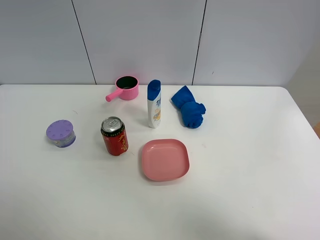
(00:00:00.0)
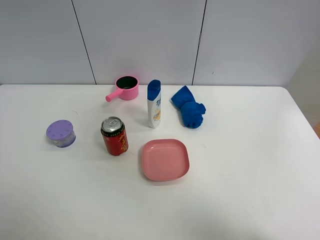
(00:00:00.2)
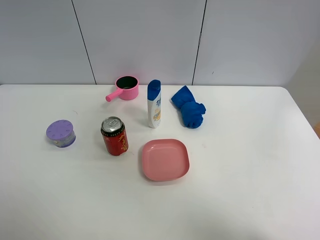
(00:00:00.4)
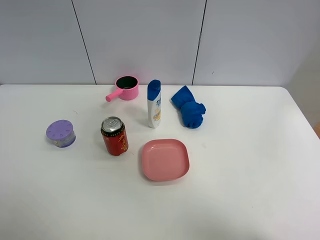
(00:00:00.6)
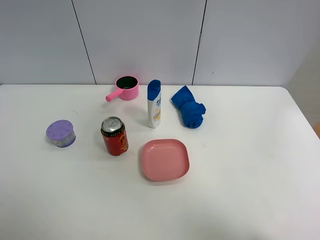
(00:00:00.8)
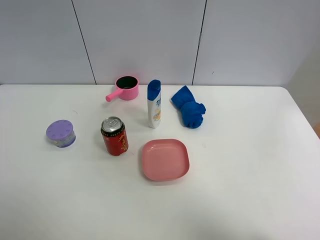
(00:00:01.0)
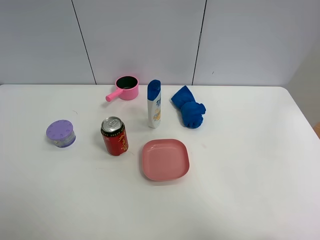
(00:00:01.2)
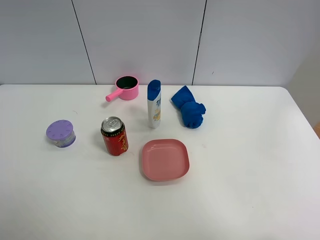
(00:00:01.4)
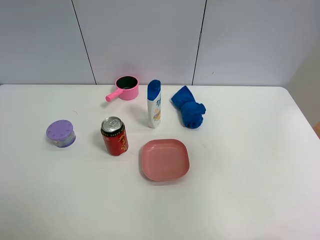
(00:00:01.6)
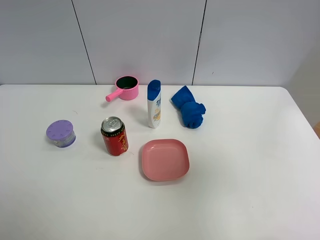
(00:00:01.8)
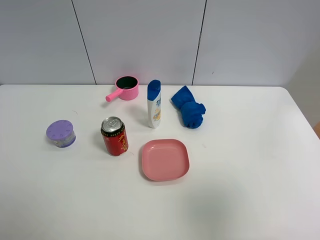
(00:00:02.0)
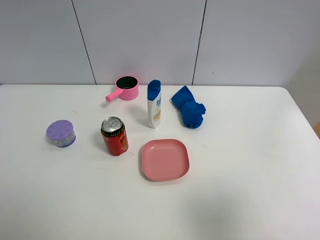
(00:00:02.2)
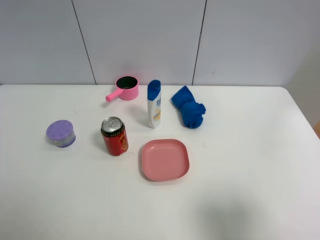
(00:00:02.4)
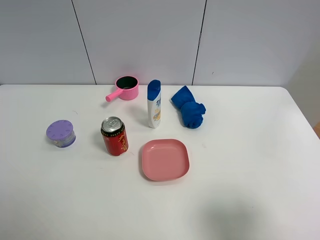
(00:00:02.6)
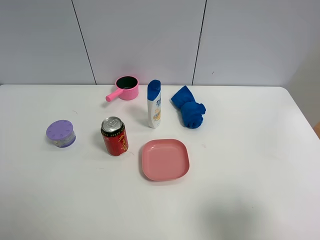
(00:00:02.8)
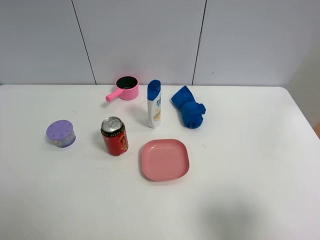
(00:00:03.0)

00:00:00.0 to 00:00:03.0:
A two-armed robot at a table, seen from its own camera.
Task of the whole recording: the gripper move the object.
00:00:00.0 to 00:00:01.6: The right gripper moves downward, to the right and backward, some 20 cm.
00:00:01.6 to 00:00:03.0: The right gripper travels downward and backward by some 20 cm.

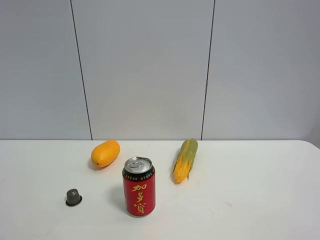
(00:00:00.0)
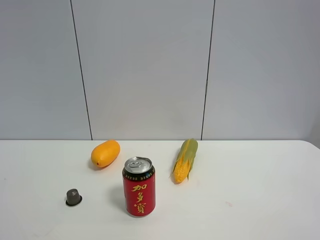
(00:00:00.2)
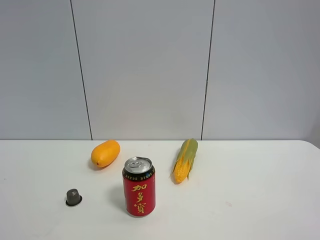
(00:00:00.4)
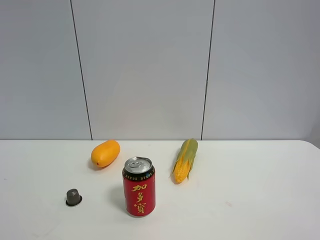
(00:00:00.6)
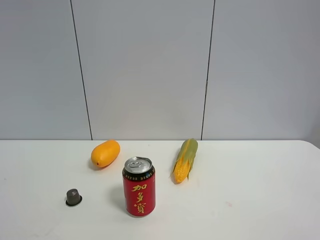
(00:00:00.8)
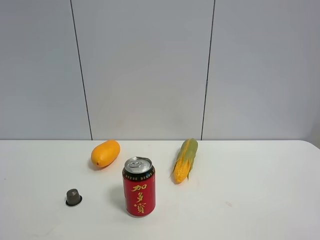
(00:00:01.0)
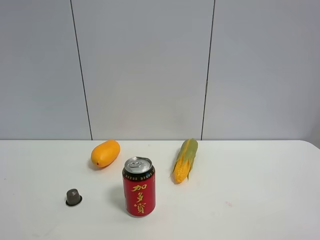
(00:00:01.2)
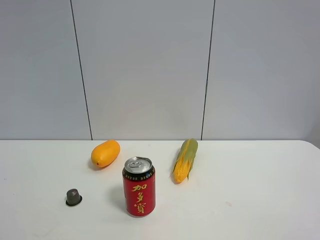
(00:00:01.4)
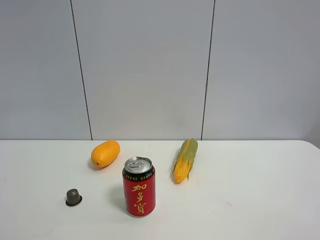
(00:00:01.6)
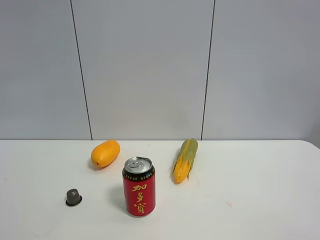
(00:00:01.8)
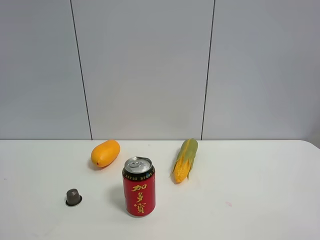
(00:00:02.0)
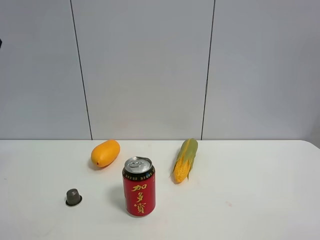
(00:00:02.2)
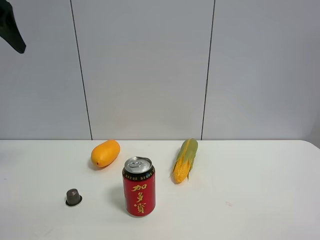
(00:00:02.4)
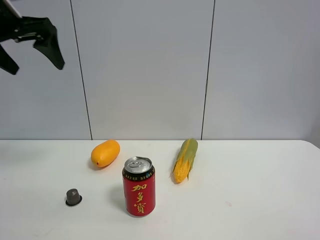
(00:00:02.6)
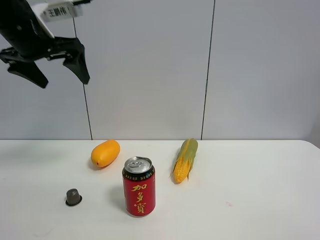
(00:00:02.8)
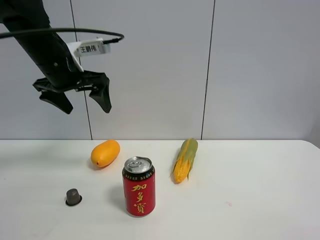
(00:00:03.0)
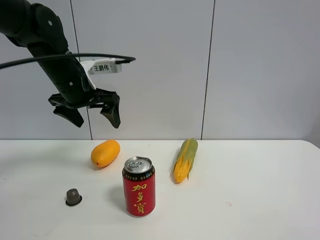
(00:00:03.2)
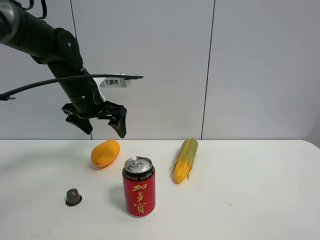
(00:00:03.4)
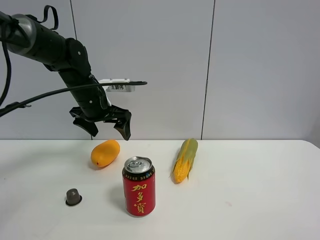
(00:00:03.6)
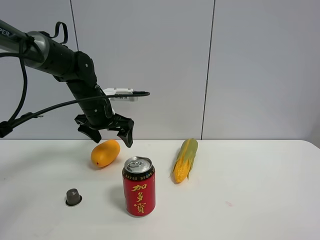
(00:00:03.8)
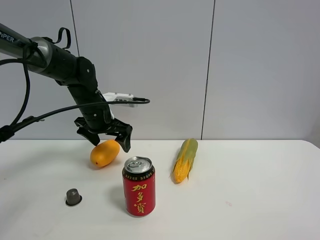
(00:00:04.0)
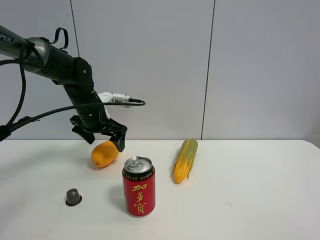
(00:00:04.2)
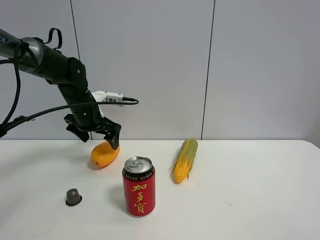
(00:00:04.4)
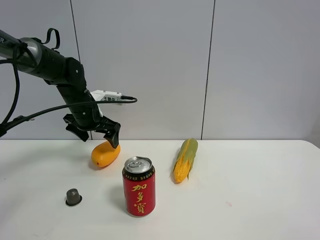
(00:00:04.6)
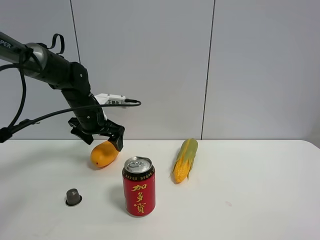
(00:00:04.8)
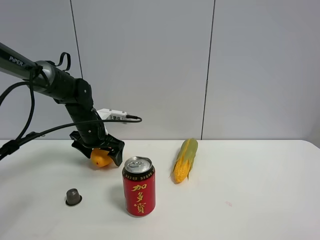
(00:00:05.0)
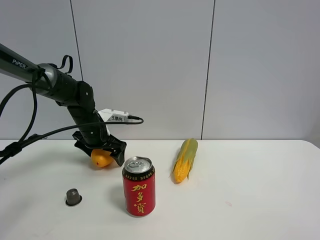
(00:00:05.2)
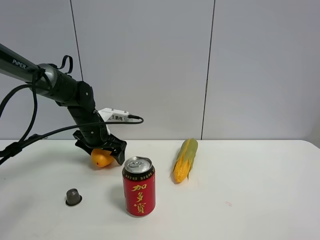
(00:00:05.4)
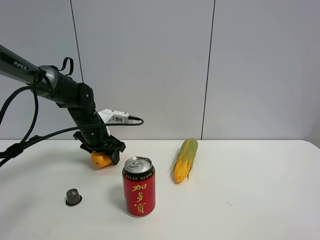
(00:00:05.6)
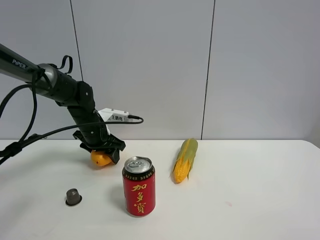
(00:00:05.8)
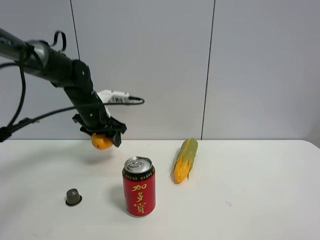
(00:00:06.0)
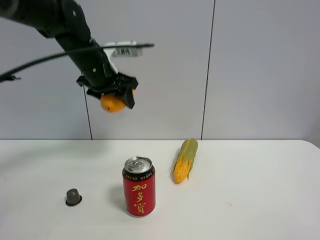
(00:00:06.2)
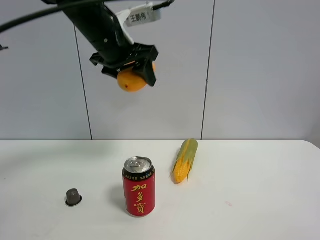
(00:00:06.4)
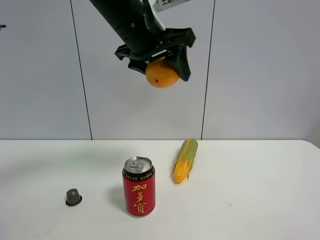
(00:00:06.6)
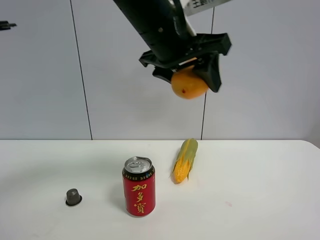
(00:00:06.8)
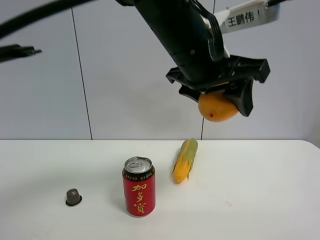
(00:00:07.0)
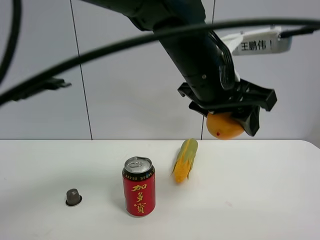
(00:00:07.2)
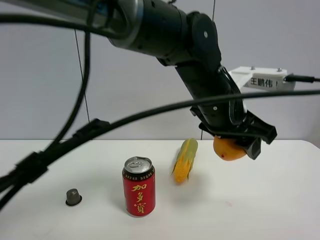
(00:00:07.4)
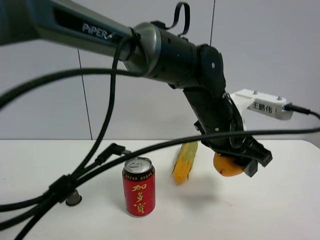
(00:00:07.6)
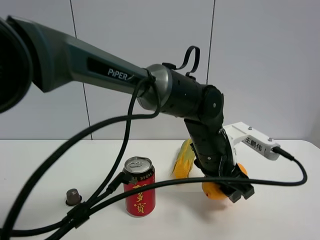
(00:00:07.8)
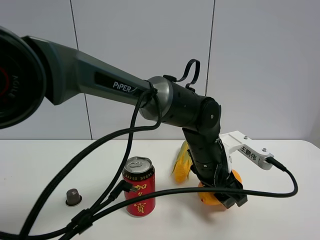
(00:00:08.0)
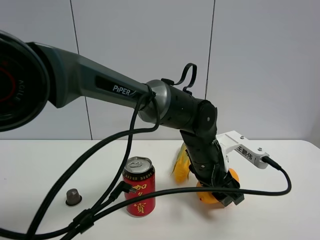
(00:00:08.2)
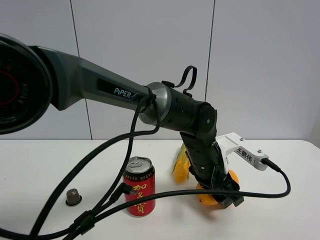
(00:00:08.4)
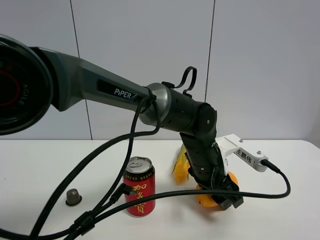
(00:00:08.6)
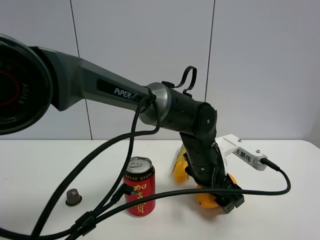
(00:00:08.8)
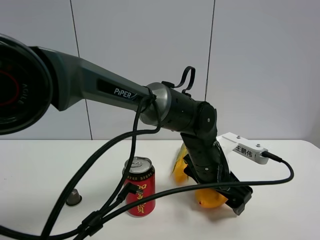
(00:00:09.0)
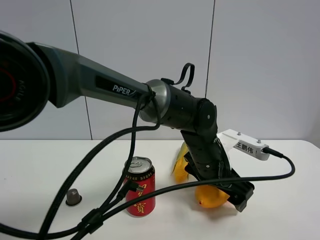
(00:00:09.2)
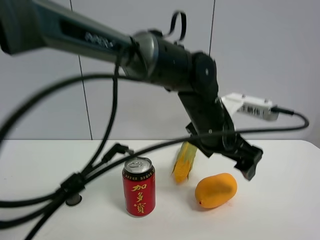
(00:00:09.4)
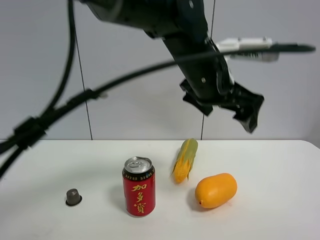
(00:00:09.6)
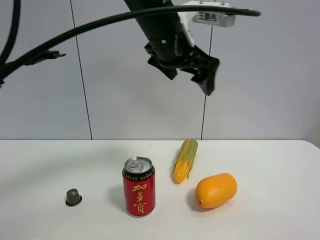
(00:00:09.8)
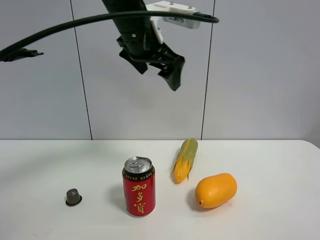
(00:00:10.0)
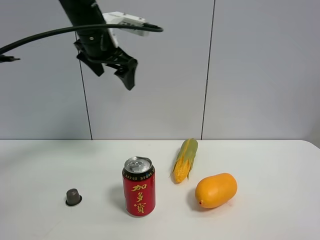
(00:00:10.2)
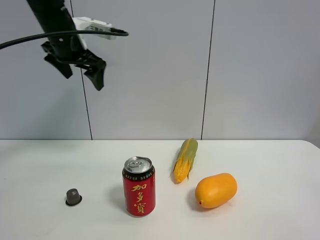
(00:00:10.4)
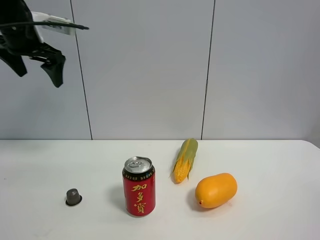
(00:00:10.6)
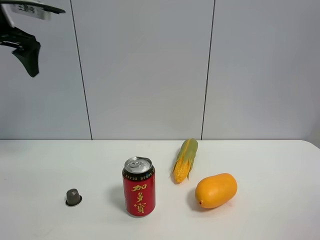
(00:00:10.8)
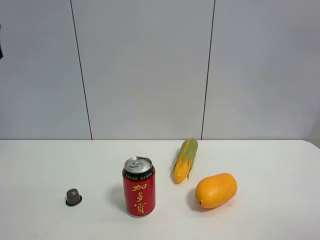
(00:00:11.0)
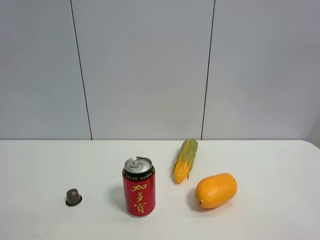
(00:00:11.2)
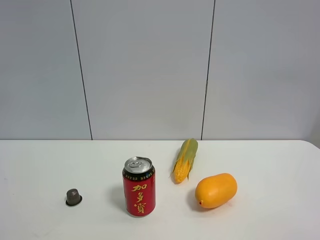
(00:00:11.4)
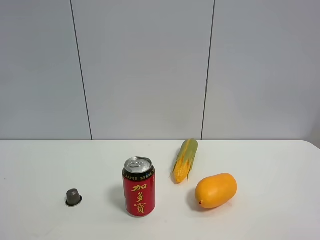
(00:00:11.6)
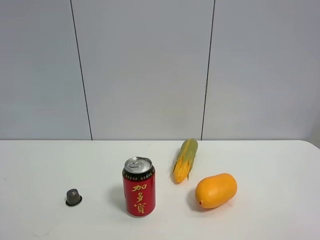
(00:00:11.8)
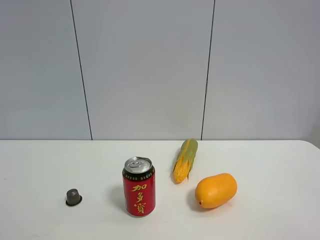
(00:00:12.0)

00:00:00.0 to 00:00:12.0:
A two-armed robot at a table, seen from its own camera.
Task of the whole recording: the gripper move the object.
Step, 00:00:00.0 to 00:00:05.6: Grasp the mango with the left gripper.
Step, 00:00:05.8 to 00:00:09.4: Place the mango on the table with the left gripper.
00:00:01.6 to 00:00:03.0: The left gripper is displaced forward and to the right by approximately 35 cm.
00:00:03.0 to 00:00:04.4: The left gripper is displaced downward and forward by about 15 cm.
00:00:04.4 to 00:00:06.0: The left gripper closes up.
00:00:06.0 to 00:00:07.6: The left gripper moves to the right and backward, about 30 cm.
00:00:07.6 to 00:00:09.0: The left gripper travels downward by roughly 10 cm, and opens.
00:00:09.0 to 00:00:10.4: The left gripper goes about 40 cm to the left and upward.
00:00:10.4 to 00:00:12.0: The left gripper moves backward, some 40 cm.

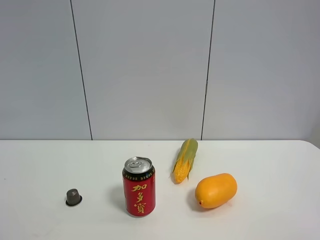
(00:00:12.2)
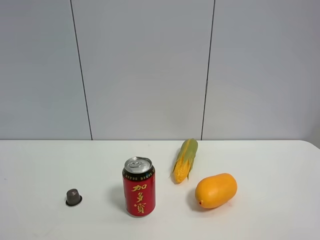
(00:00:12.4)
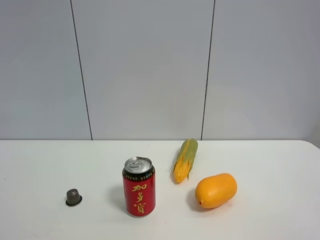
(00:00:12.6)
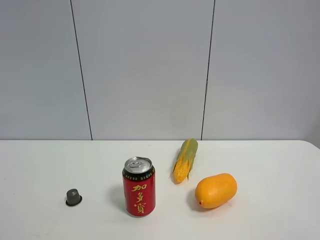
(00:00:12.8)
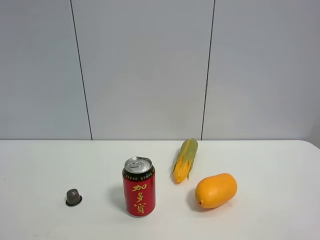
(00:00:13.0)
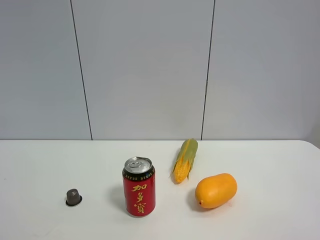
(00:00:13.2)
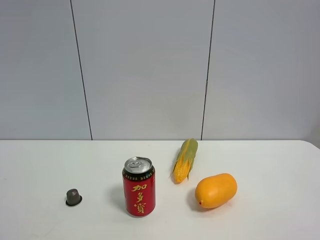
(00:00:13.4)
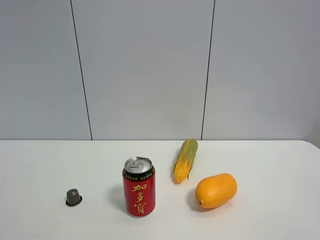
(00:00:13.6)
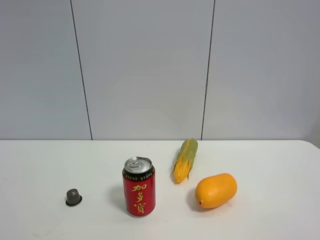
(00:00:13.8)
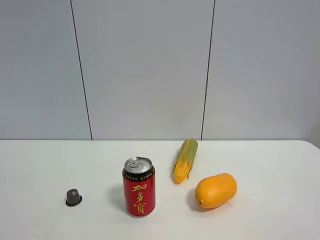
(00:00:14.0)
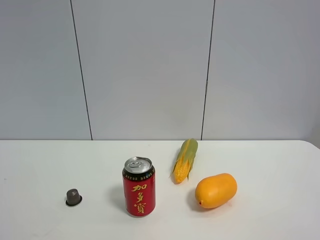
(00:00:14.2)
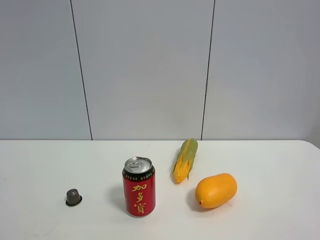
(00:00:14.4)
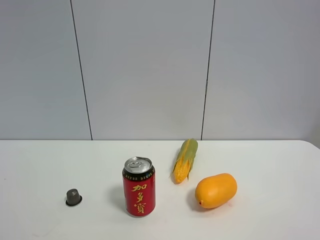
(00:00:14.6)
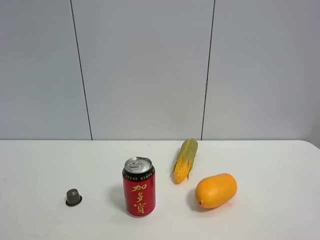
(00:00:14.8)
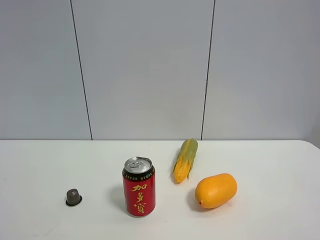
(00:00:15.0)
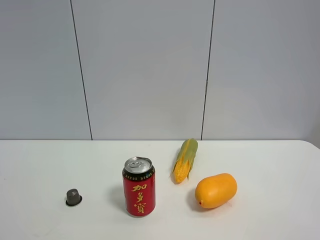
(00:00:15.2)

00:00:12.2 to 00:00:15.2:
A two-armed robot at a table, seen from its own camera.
Task of the whole recording: the gripper move the object.
00:00:13.8 to 00:00:15.2: The two grippers keep their place.
